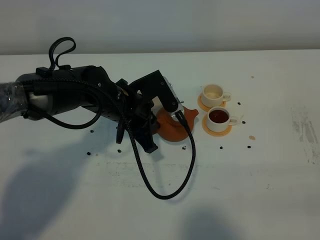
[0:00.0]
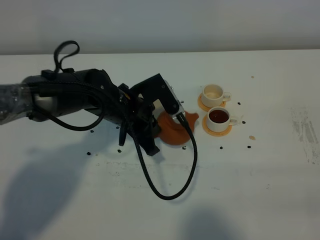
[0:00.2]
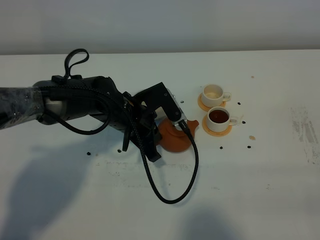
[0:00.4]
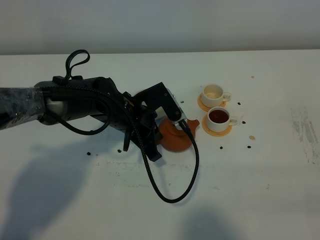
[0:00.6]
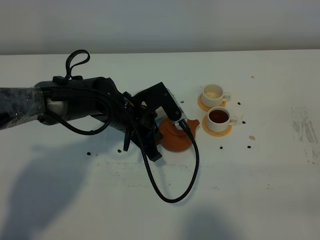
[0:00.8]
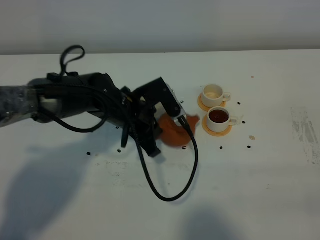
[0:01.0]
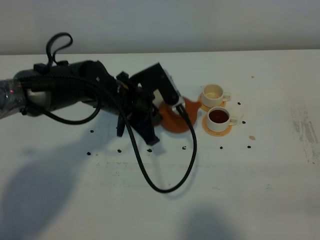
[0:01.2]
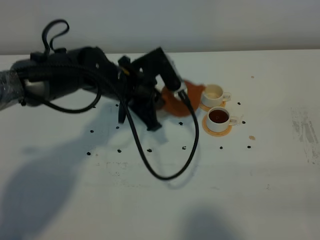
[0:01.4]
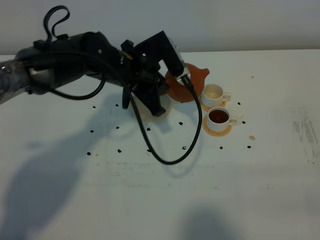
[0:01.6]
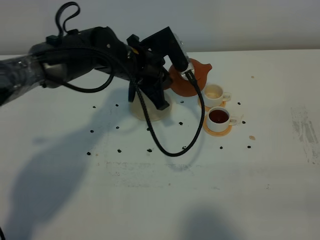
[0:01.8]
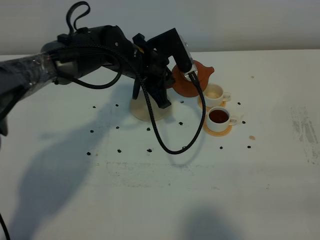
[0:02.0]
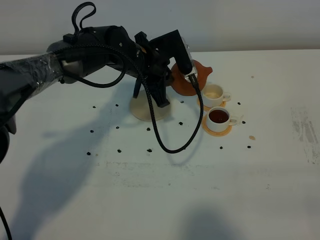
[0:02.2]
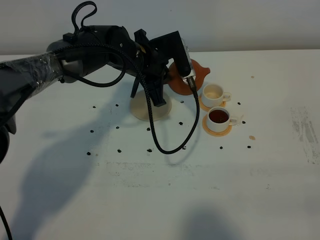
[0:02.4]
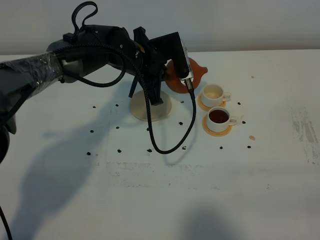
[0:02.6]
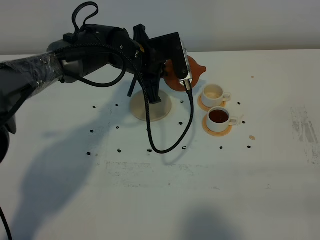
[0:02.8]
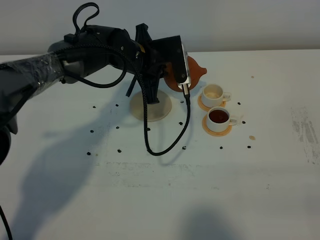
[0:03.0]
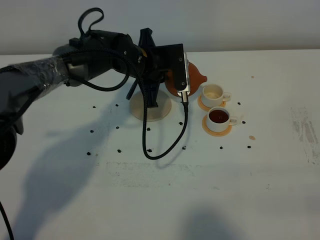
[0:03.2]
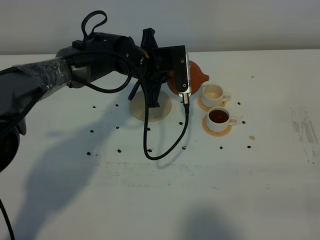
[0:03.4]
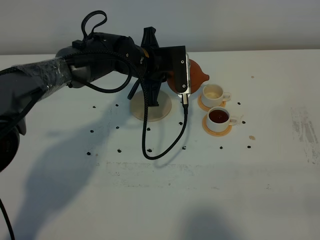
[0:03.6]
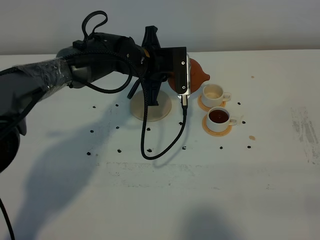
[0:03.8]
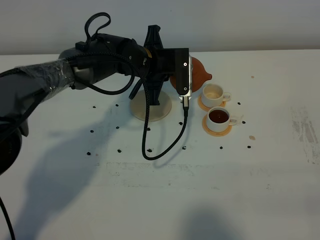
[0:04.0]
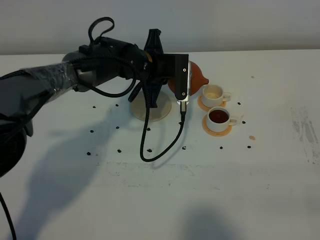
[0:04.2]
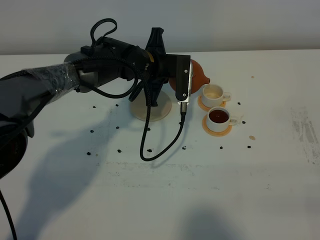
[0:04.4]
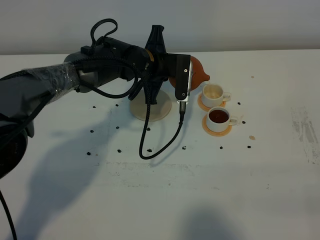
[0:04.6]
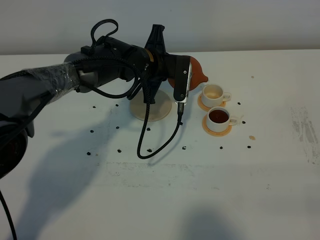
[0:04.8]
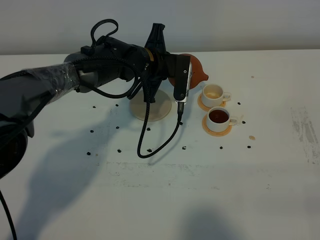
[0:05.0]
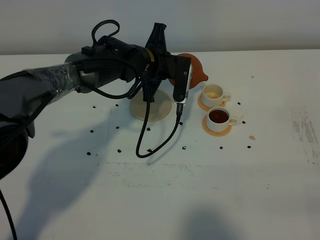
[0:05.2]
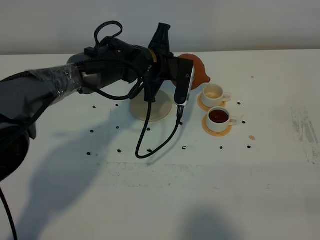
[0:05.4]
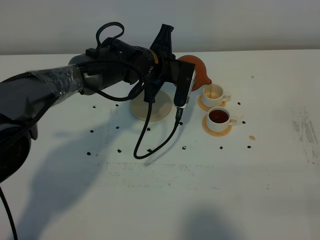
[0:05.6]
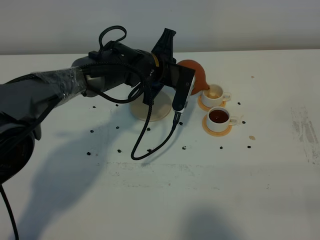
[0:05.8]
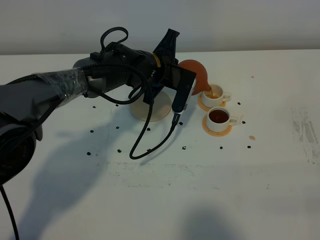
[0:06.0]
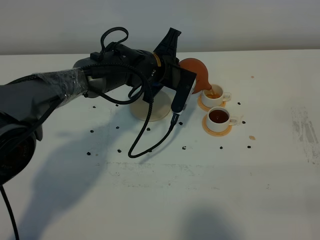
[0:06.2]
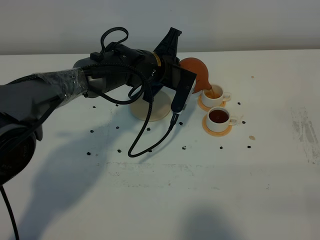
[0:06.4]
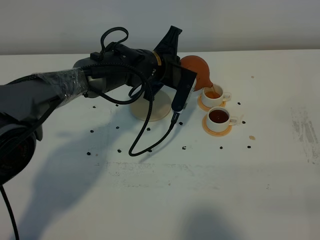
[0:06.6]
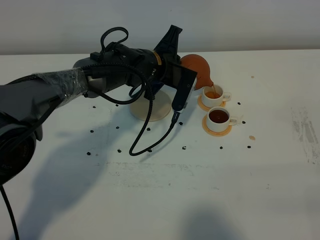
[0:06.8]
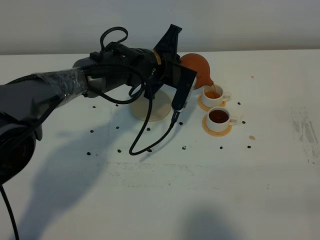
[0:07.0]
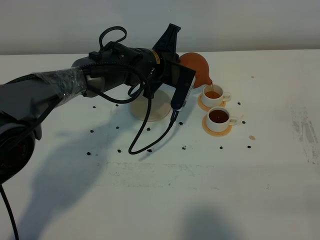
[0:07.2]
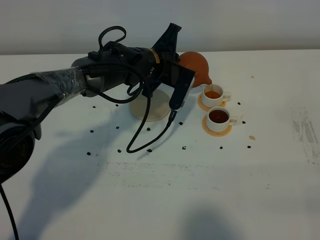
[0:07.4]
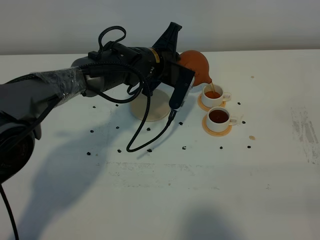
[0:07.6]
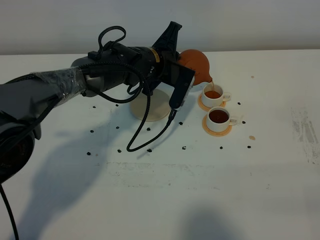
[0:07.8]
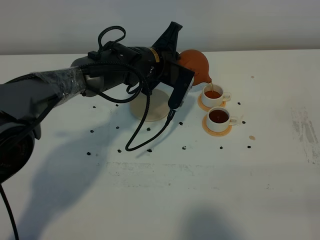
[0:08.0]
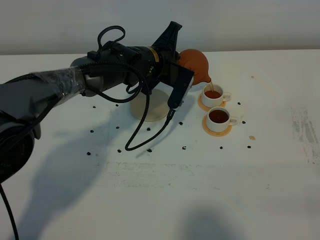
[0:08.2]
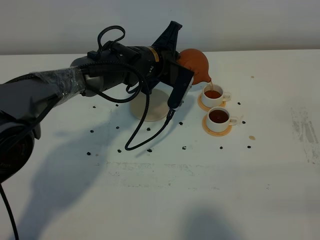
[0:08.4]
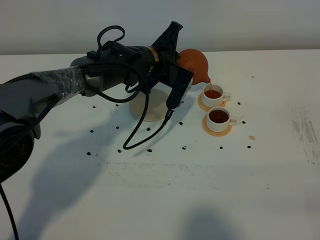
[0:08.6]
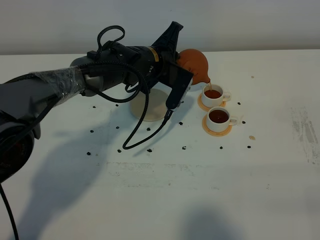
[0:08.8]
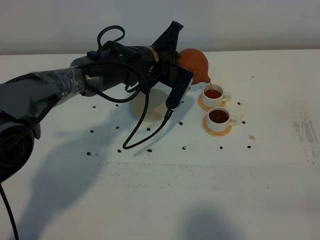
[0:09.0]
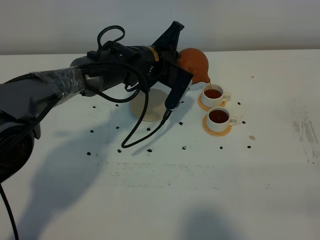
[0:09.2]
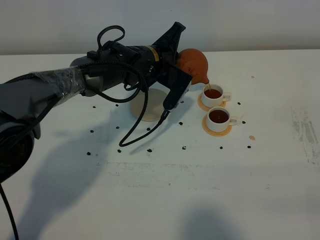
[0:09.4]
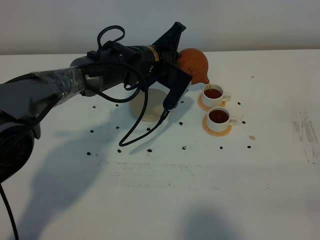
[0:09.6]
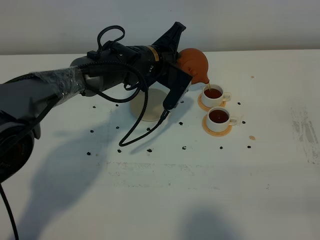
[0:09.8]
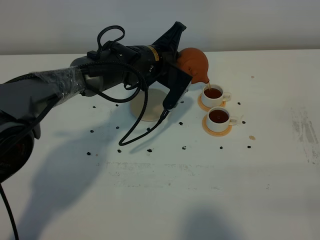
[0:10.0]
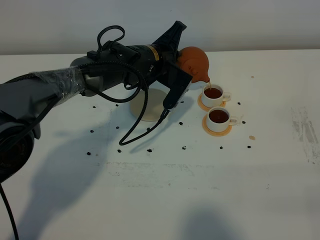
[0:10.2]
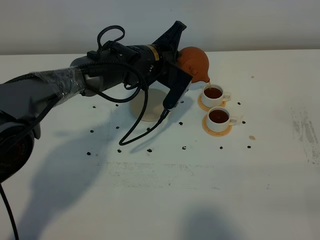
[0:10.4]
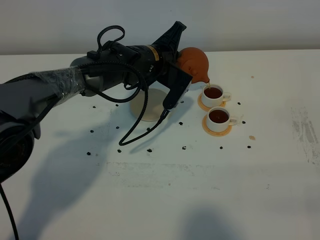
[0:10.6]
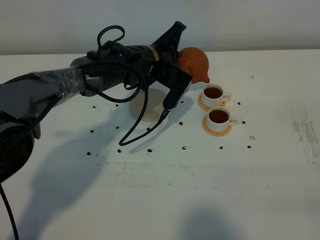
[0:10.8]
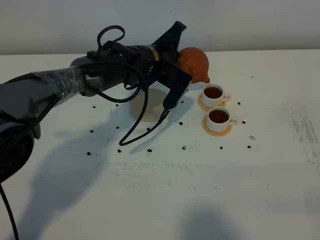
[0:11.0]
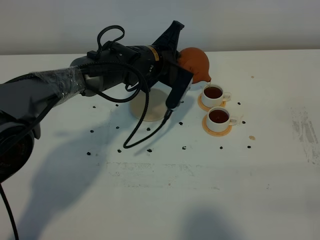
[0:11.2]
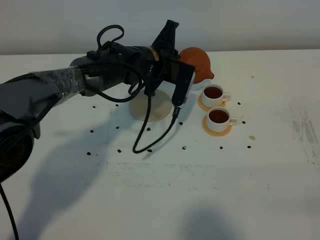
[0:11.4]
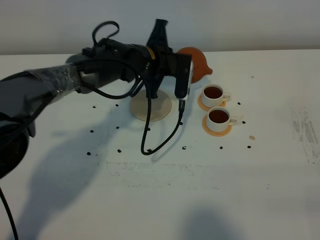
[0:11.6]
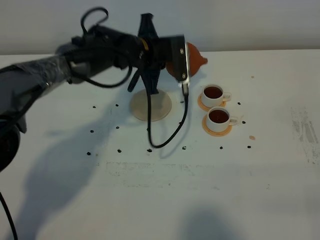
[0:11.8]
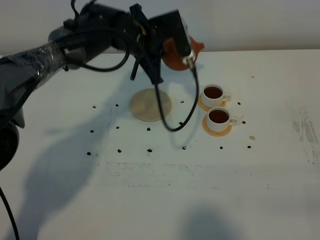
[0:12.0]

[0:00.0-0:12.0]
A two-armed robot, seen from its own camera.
Task of the whole recording: grasp the brown teapot and pour the tea into the two white teacups one by one, put the brown teapot back in its original place.
0:00.0 to 0:01.6: The left gripper ends up about 5 cm from where it was.
0:01.6 to 0:03.0: The left gripper moves some 5 cm.
0:03.0 to 0:04.4: The grippers stay close to where they were, moving slightly.
0:04.4 to 0:06.0: There are only small adjustments of the grippers.
0:06.0 to 0:07.6: There are only small adjustments of the grippers.
0:07.6 to 0:09.0: The two grippers keep their place.
0:09.0 to 0:10.4: The grippers move only a little.
0:10.4 to 0:12.0: The left gripper heads upward, covering about 5 cm.

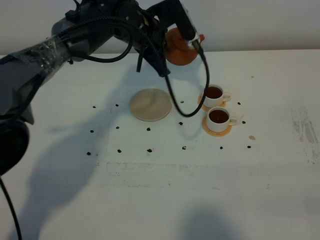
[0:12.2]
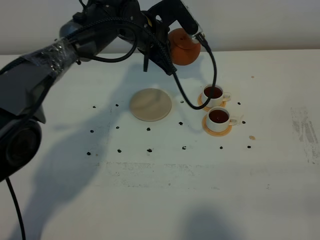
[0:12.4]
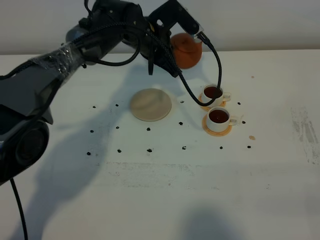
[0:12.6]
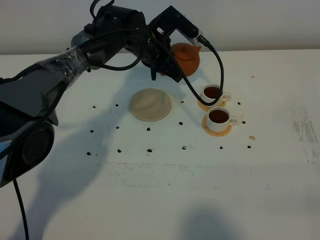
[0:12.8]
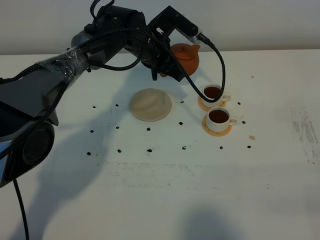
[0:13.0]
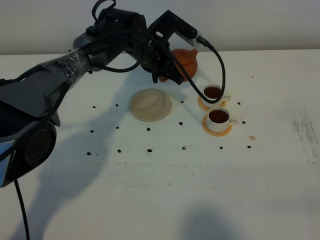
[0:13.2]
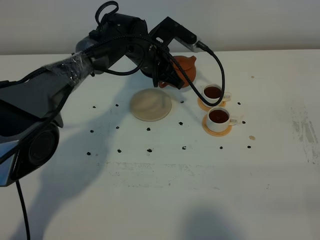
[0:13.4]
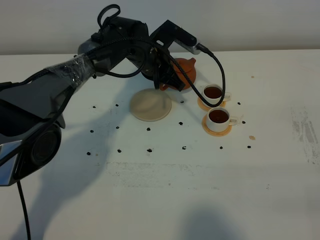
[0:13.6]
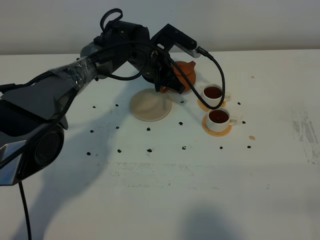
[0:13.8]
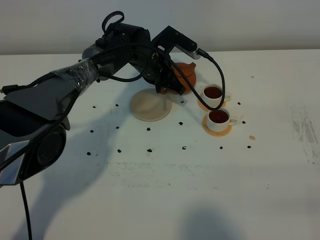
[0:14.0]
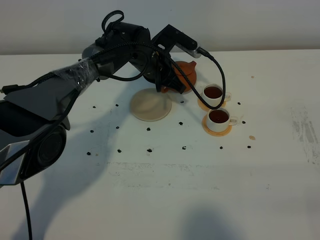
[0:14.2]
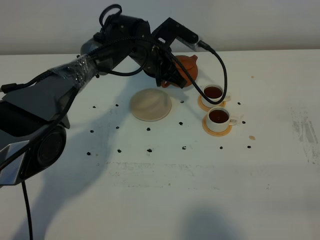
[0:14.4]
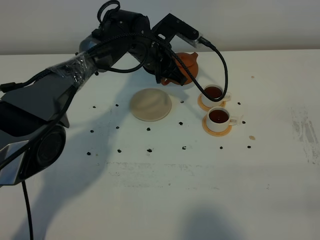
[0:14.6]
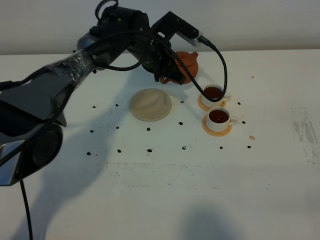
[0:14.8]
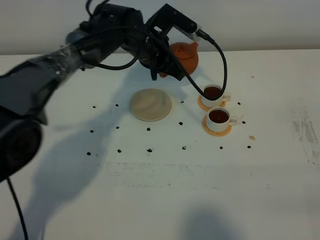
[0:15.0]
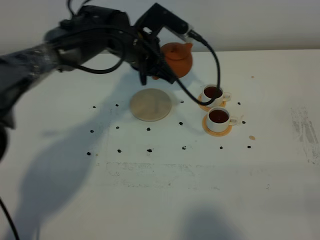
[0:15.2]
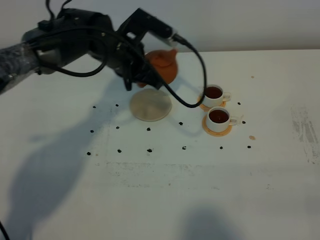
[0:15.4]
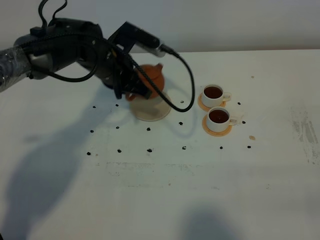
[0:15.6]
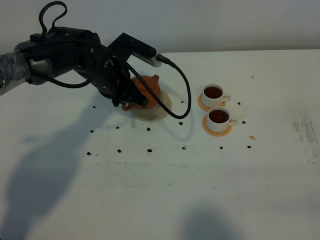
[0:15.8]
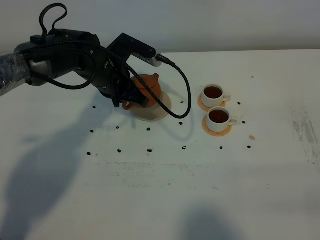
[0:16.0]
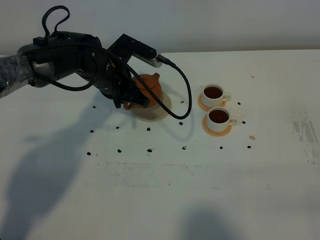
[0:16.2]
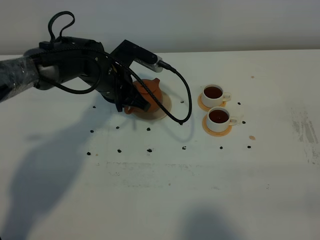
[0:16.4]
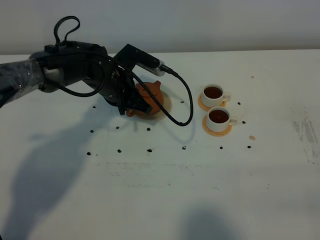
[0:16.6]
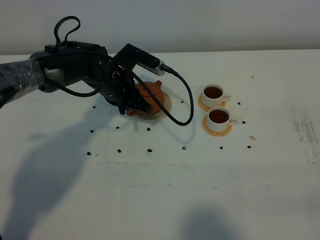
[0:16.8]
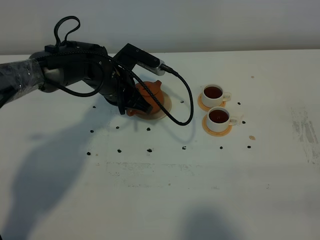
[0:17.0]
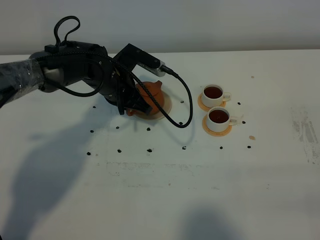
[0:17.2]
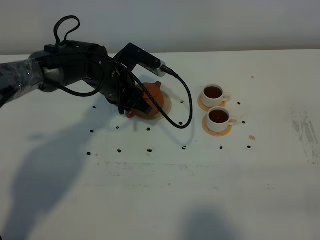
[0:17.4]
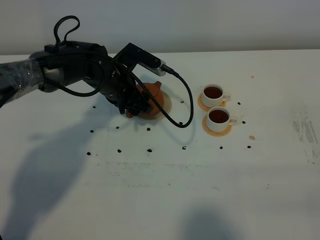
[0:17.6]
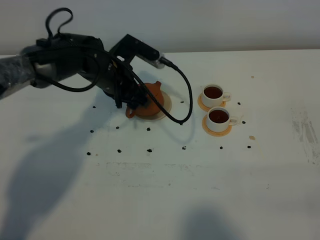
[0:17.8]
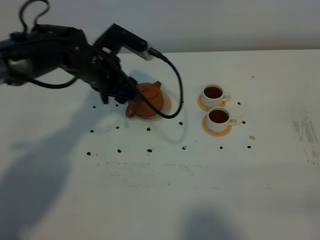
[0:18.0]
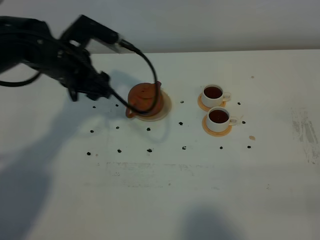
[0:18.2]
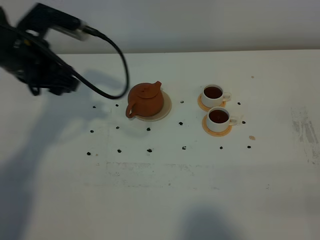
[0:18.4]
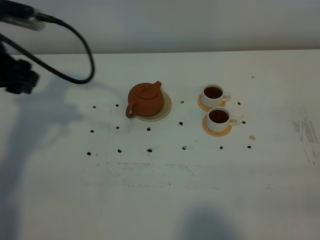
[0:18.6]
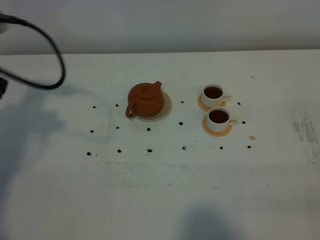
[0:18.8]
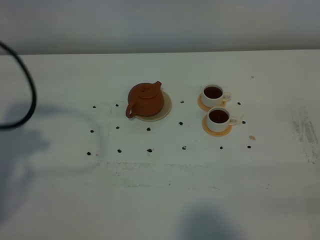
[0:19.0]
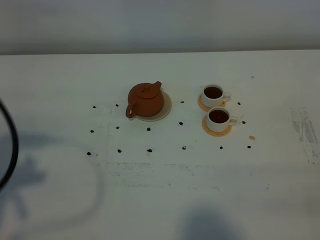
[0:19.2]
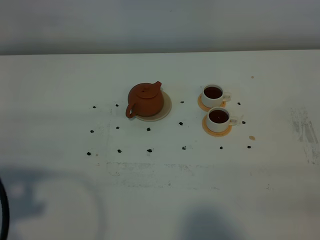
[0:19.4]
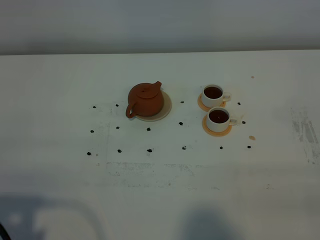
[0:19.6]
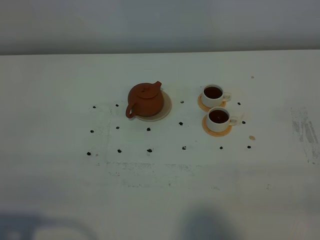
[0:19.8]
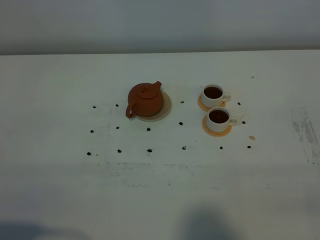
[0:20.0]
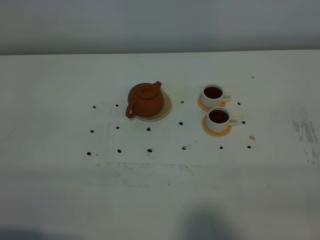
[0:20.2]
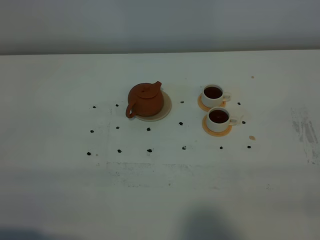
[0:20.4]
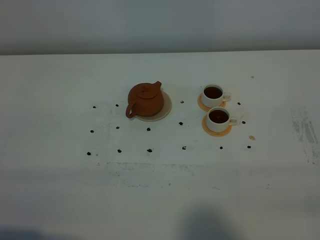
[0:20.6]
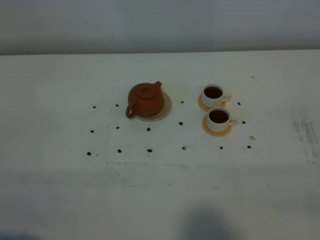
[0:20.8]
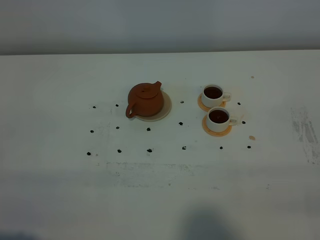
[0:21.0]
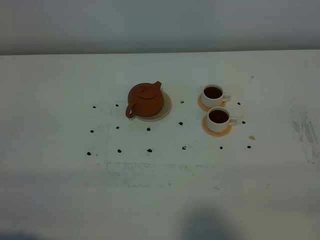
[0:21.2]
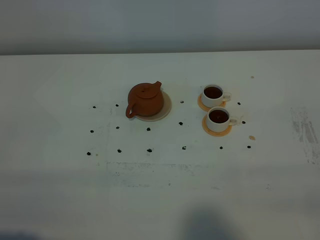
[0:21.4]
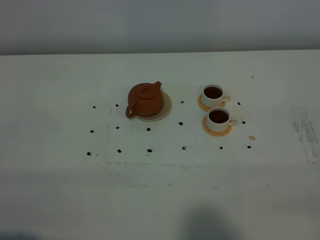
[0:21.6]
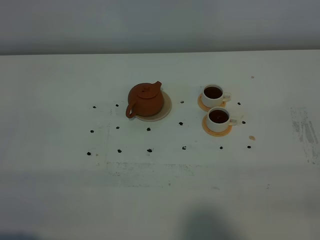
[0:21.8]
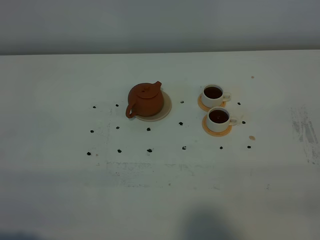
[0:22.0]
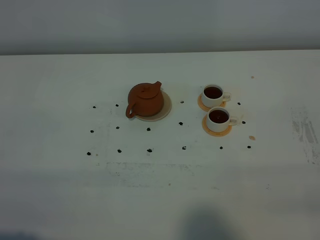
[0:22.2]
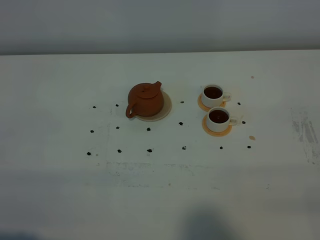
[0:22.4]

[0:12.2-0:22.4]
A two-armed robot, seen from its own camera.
Task of the whole recording: grasp the brown teapot and pour the tea into the two white teacups one by one, put the brown teapot back in its original place.
0:12.2 to 0:13.6: The left gripper is displaced downward by approximately 10 cm.
0:13.6 to 0:15.2: The left gripper shifts some 5 cm upward.
0:15.2 to 0:16.6: The left gripper shifts some 5 cm downward.
0:16.6 to 0:18.0: The left gripper shifts about 5 cm upward, and opens up.
0:18.0 to 0:19.4: The left gripper heads backward and to the left, covering about 35 cm.
0:19.4 to 0:21.0: The left gripper goes approximately 10 cm backward and downward.
0:21.0 to 0:22.4: Neither gripper changes place.
